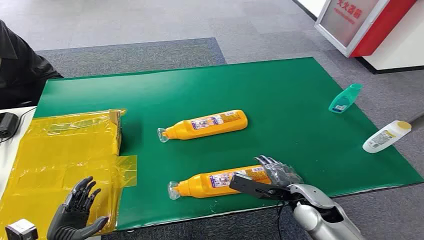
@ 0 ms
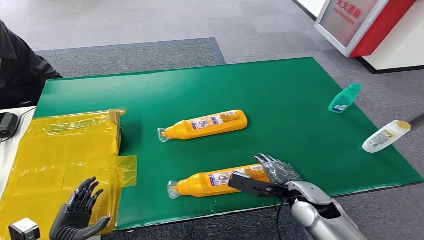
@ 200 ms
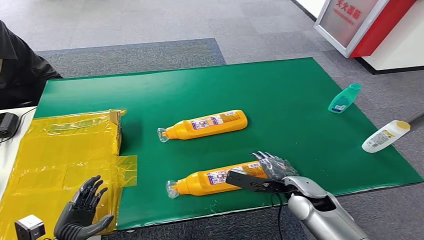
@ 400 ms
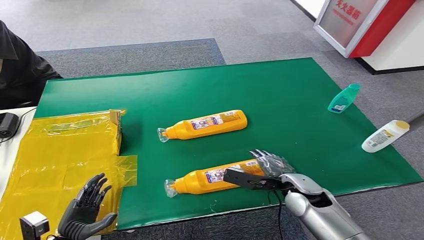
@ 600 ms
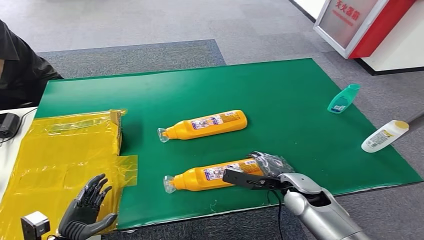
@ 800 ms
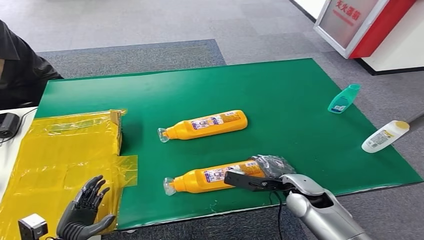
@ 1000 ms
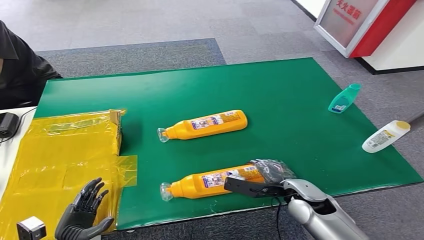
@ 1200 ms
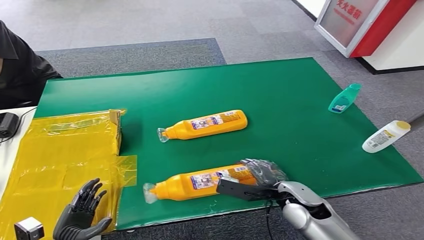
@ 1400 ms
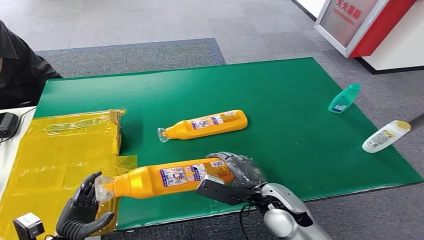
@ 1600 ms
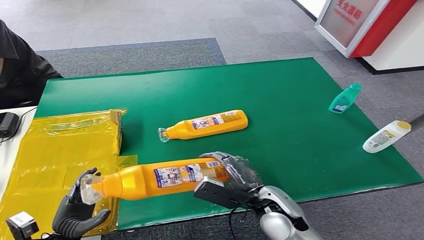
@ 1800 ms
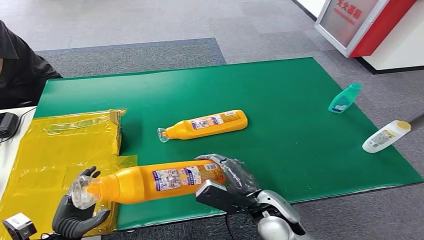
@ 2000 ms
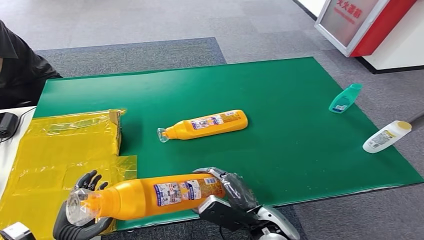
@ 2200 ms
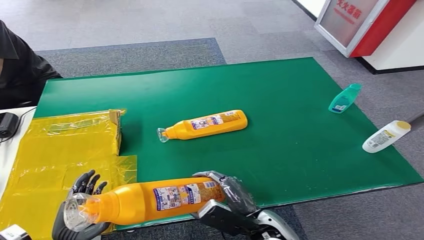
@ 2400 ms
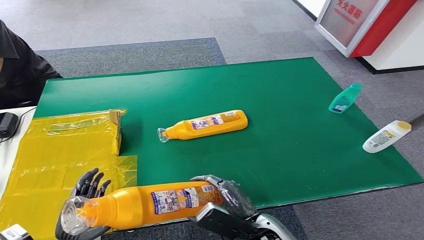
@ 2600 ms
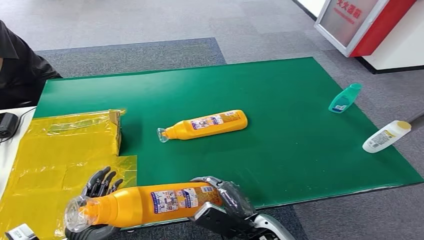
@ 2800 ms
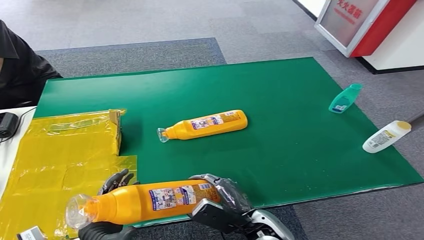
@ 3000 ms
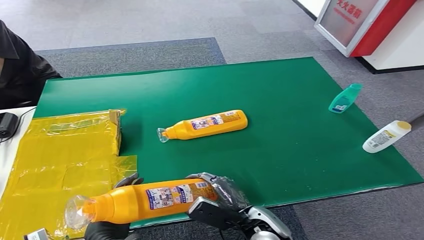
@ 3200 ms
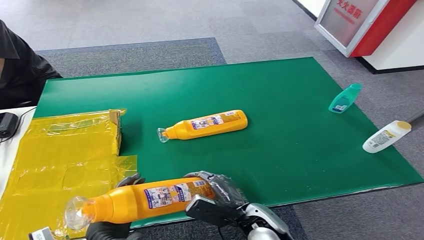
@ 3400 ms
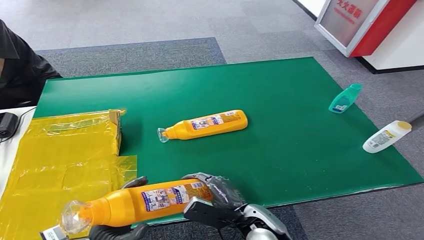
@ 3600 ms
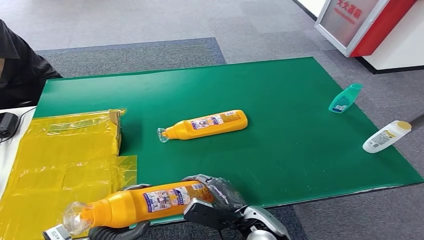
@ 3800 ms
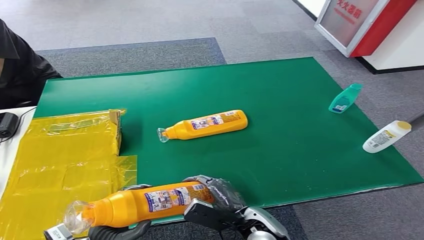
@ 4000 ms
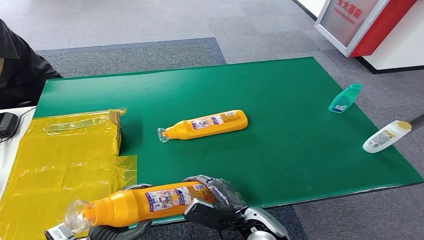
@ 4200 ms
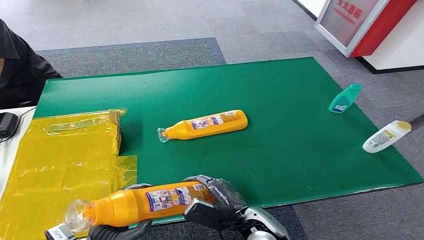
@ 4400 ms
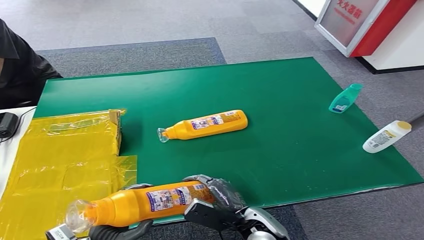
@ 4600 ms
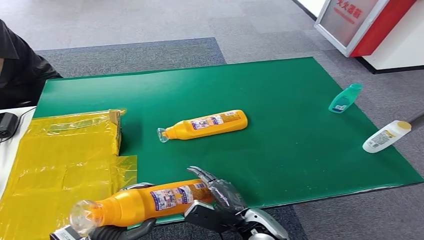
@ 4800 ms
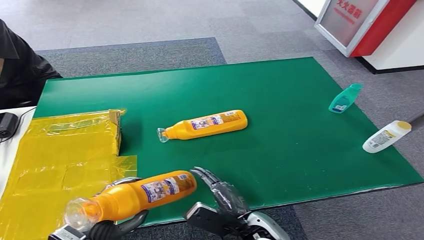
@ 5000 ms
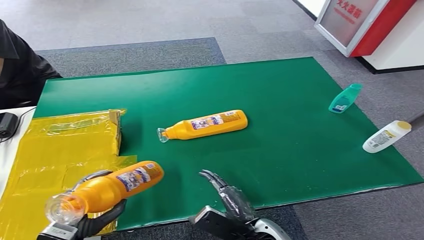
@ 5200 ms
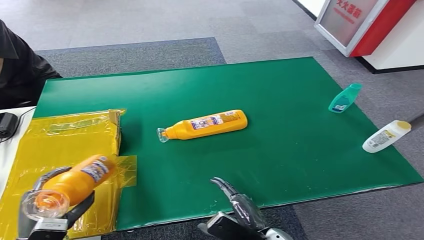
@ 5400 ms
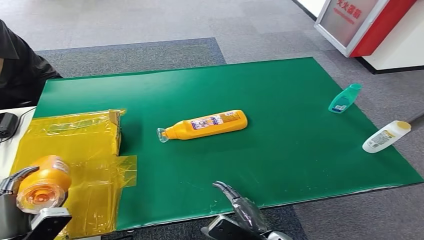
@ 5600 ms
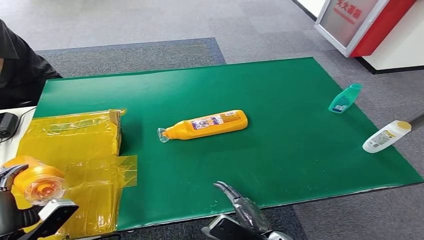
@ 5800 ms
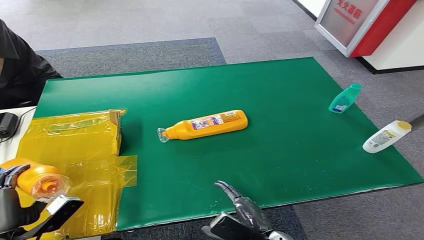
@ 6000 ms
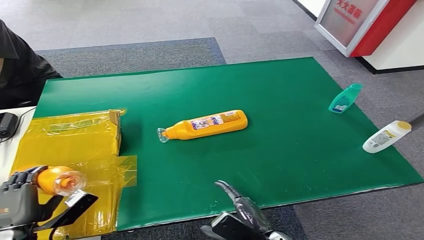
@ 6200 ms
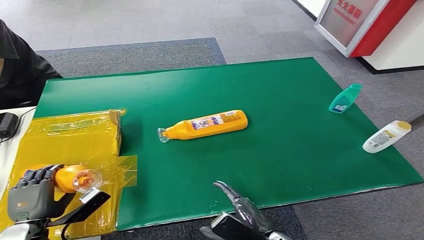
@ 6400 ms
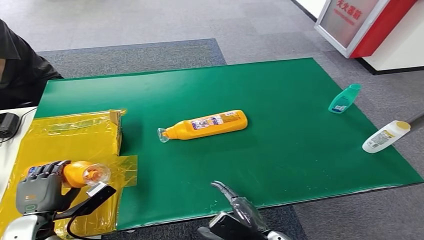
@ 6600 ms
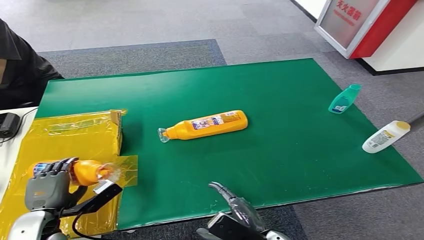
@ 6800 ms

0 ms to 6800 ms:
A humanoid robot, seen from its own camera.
Step, 0 ms to 2800 ms: Pick up the bottle from the table.
Step, 3000 ms to 6800 ms: Turn the bottle to the front side.
1400 ms to 2800 ms: The right hand shifts about 10 cm to the left and backward, while the left hand shifts some 10 cm to the right and upward.
2800 ms to 4000 ms: The hands make only small movements.
4000 ms to 5400 ms: The left hand heads to the left, covering some 10 cm; the right hand moves backward, some 5 cm.
5400 ms to 6800 ms: The left hand travels forward by about 5 cm.
